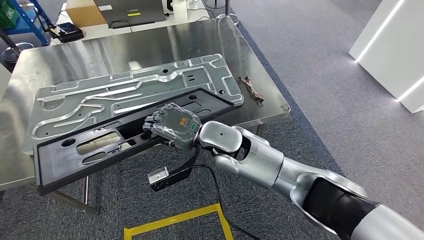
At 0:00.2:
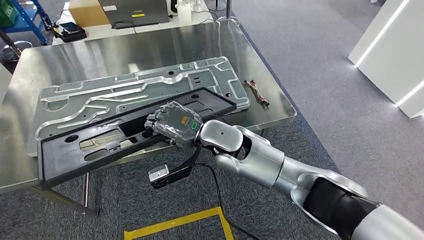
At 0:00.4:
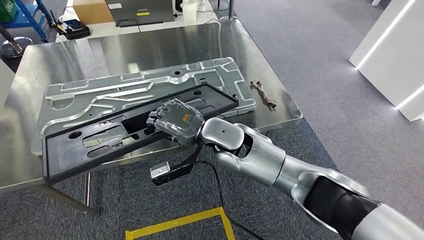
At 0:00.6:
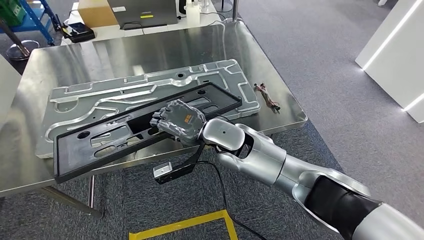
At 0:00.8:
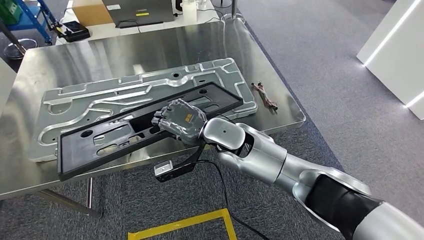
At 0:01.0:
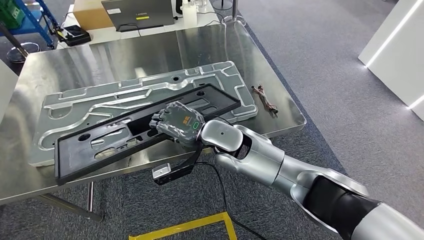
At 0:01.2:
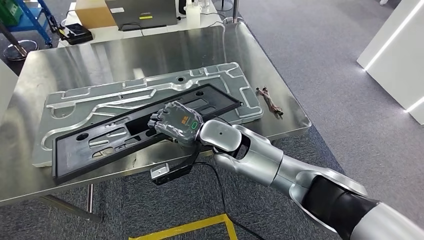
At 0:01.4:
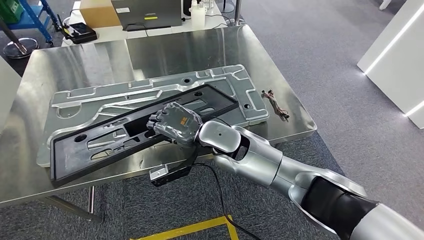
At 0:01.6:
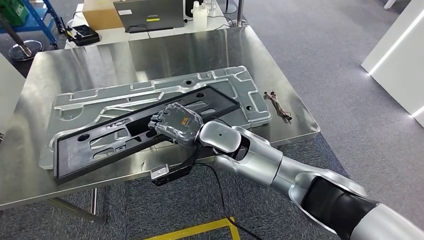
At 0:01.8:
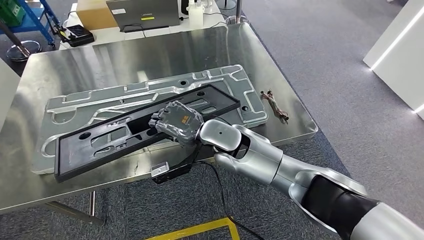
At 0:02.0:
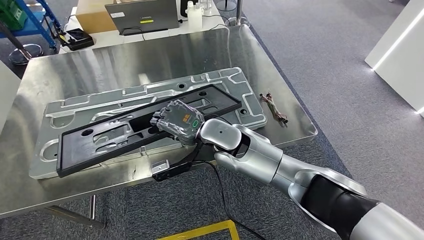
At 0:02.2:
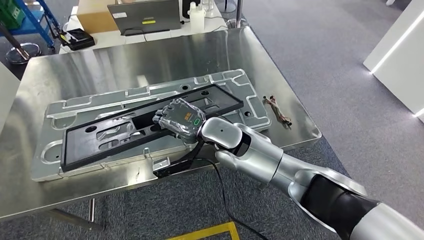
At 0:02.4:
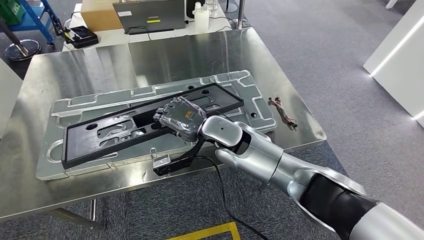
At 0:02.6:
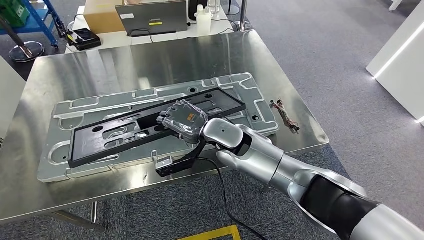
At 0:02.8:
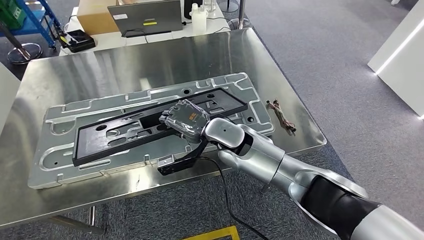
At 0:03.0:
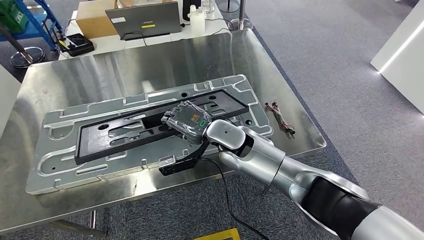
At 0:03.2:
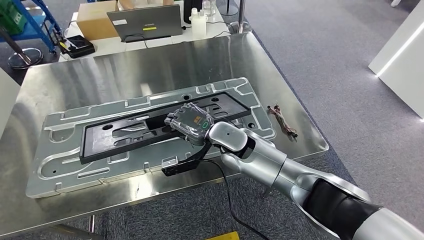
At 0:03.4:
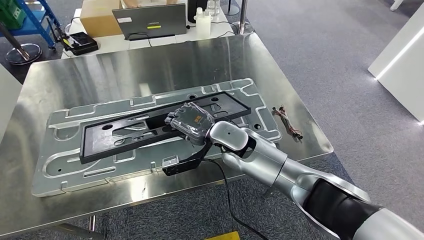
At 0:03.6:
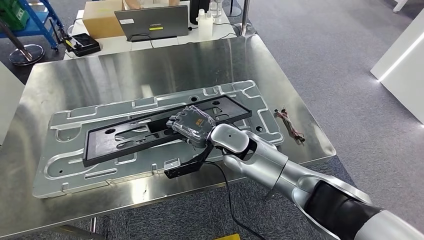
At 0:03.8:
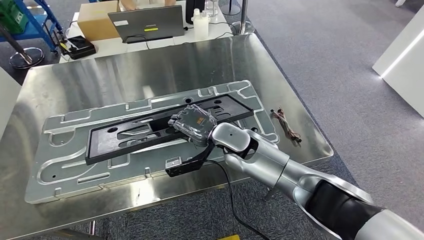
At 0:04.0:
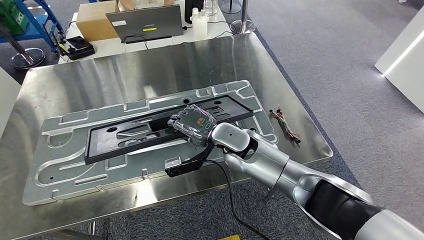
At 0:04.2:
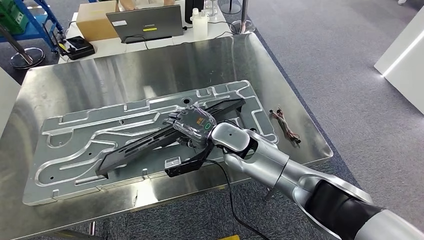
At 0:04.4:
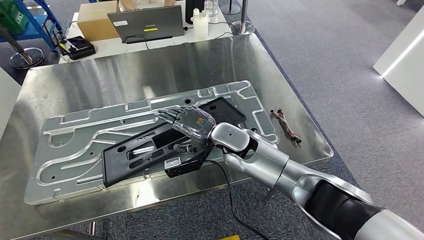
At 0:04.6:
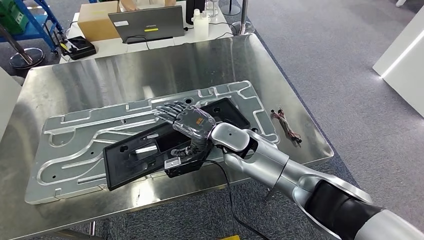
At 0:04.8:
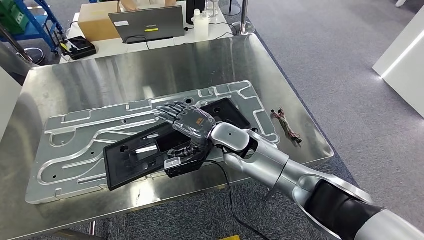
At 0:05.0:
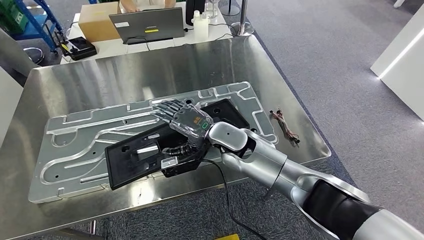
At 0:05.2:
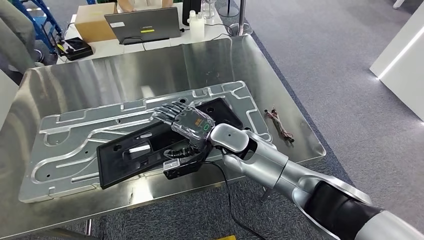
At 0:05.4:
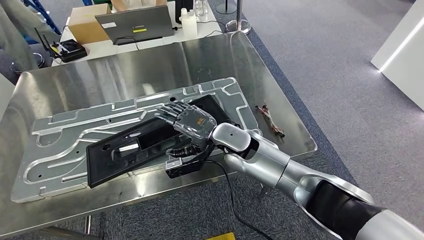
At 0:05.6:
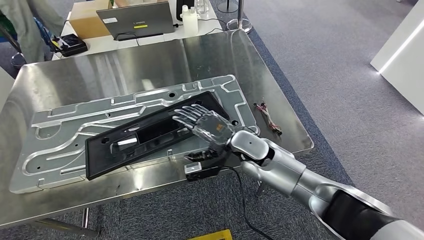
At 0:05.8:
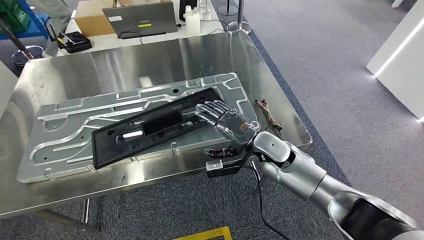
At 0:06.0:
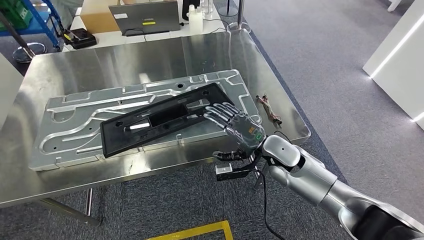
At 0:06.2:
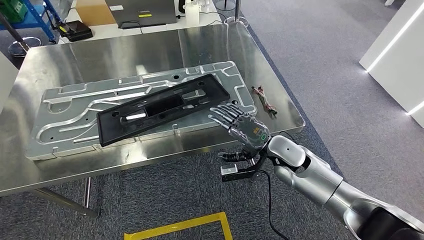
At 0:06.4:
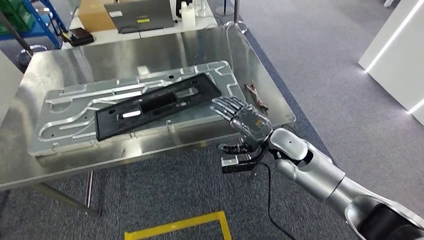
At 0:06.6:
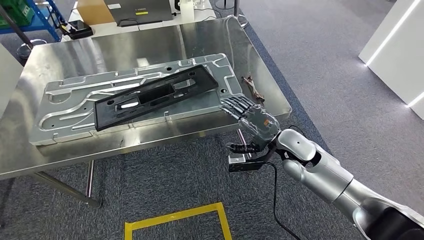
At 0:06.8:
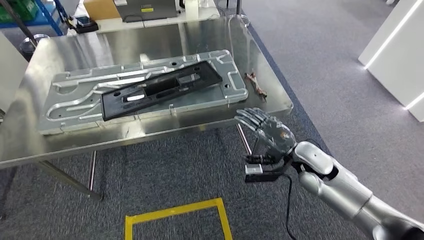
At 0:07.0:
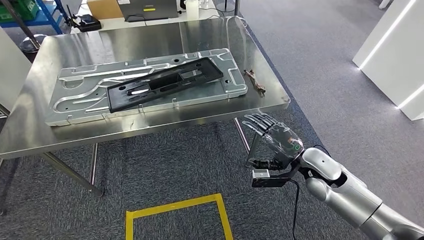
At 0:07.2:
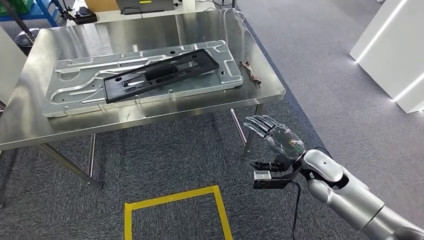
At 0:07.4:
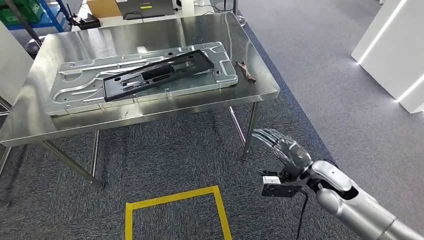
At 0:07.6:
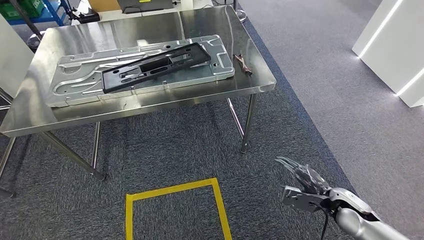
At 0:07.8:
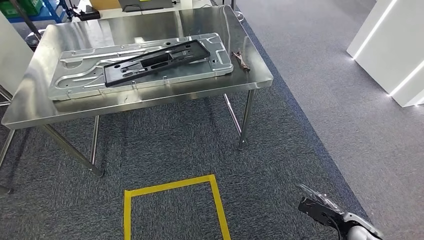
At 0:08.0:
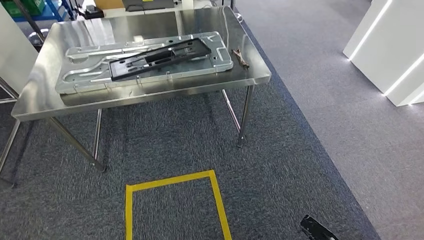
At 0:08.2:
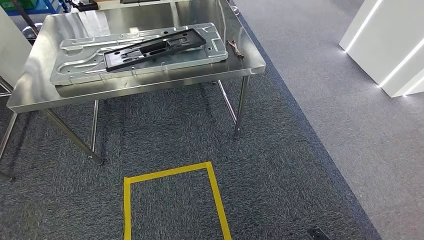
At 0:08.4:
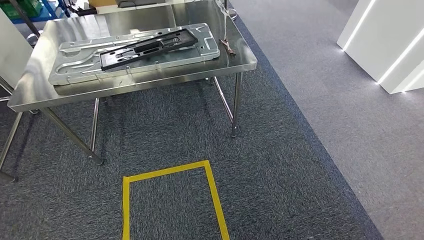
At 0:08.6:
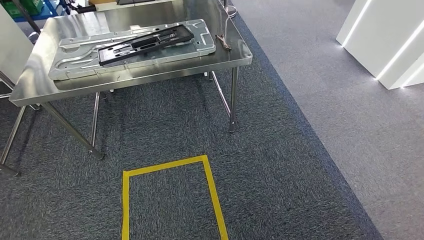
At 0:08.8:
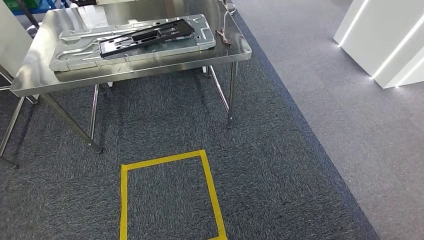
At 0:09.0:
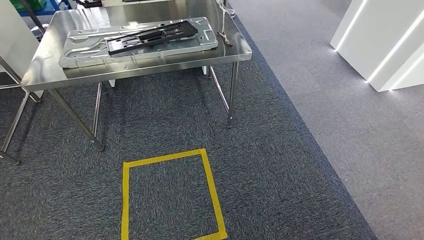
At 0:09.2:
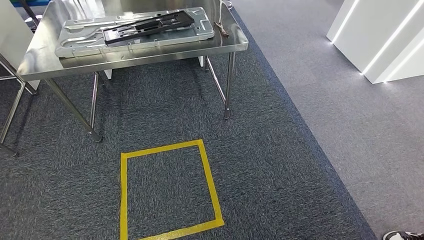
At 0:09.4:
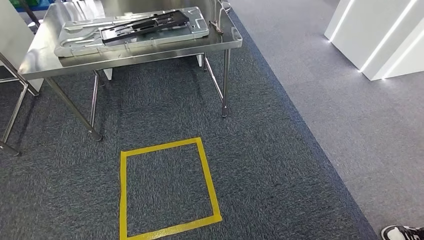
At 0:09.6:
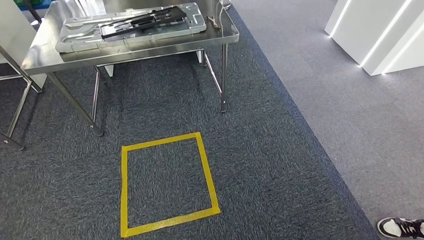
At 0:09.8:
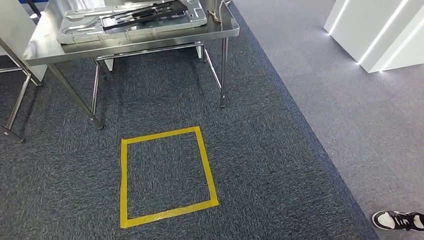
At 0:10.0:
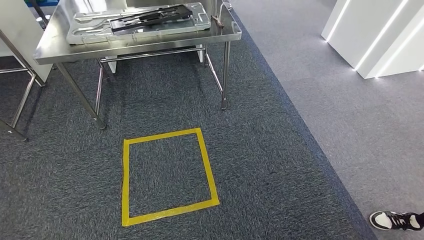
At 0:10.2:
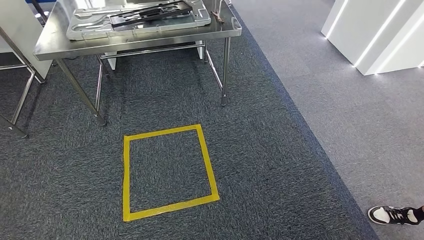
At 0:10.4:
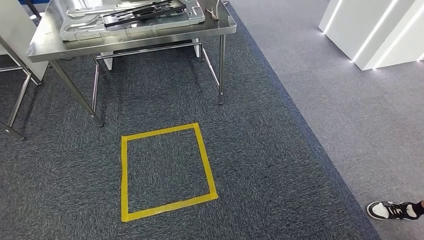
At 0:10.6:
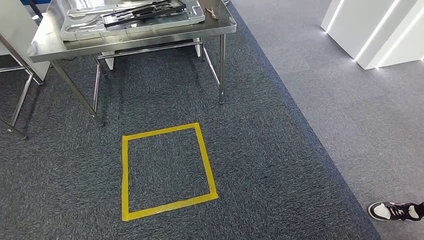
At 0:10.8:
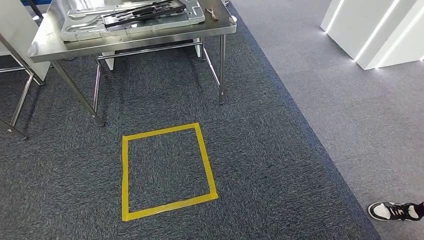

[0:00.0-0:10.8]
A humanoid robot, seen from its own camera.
Step, 0:00.0 to 0:06.2: Insert the large material into the corresponding slot on the workbench.
Step, 0:06.4 to 0:10.8: Move to the initial position of the shelf.
